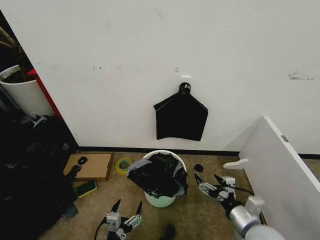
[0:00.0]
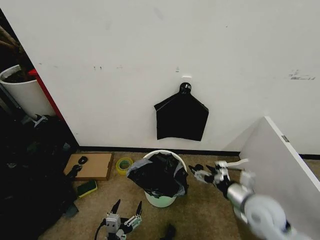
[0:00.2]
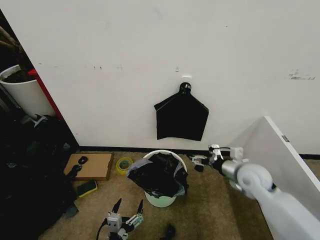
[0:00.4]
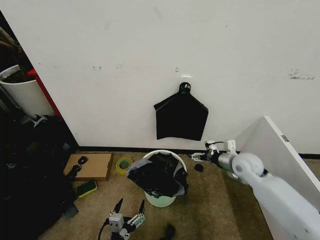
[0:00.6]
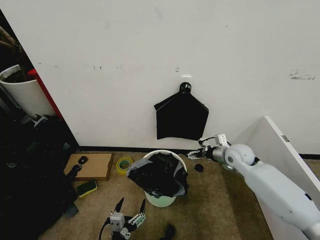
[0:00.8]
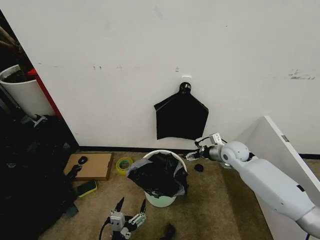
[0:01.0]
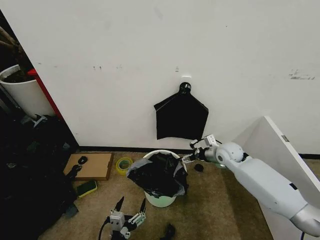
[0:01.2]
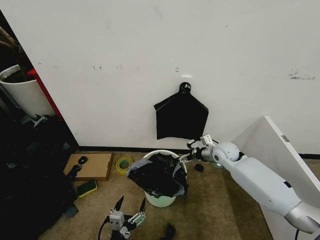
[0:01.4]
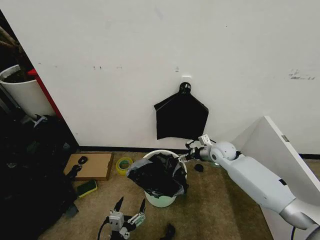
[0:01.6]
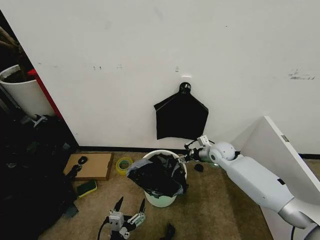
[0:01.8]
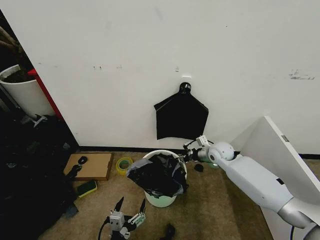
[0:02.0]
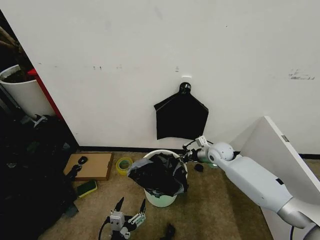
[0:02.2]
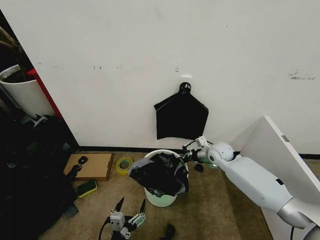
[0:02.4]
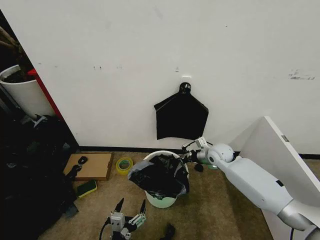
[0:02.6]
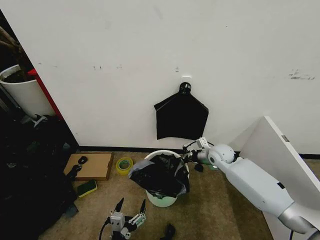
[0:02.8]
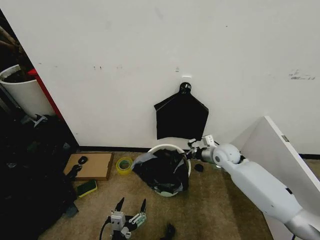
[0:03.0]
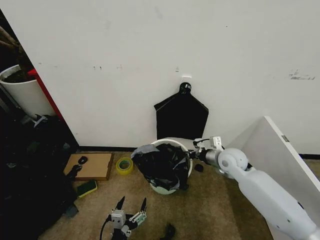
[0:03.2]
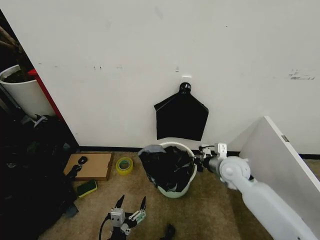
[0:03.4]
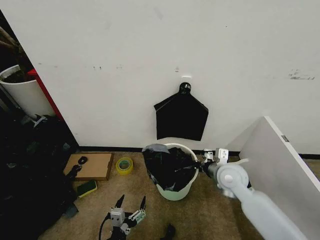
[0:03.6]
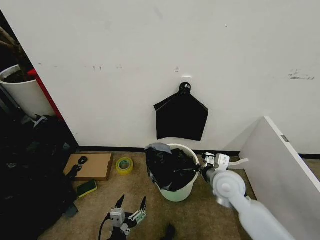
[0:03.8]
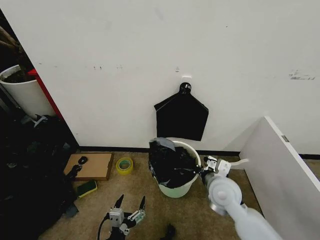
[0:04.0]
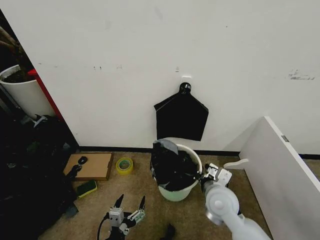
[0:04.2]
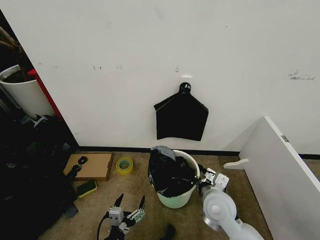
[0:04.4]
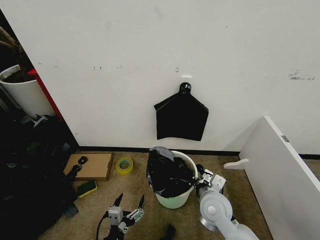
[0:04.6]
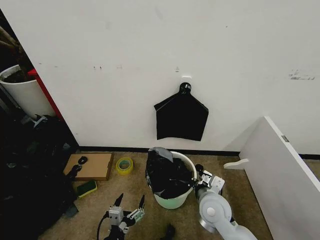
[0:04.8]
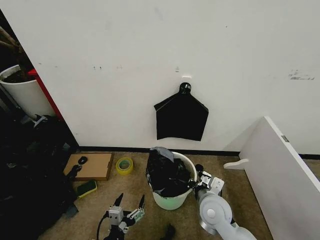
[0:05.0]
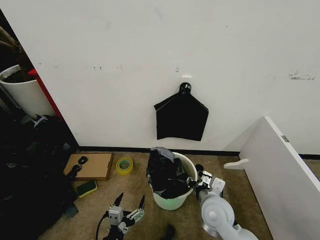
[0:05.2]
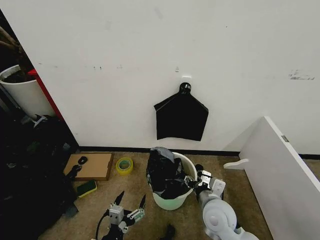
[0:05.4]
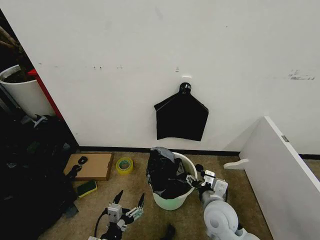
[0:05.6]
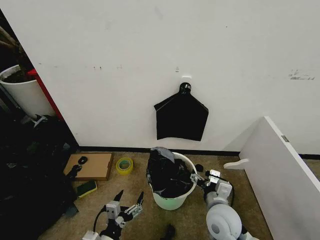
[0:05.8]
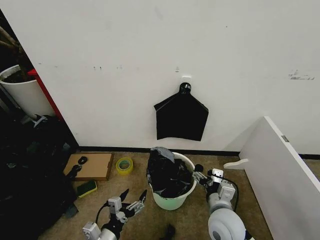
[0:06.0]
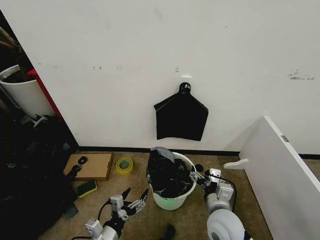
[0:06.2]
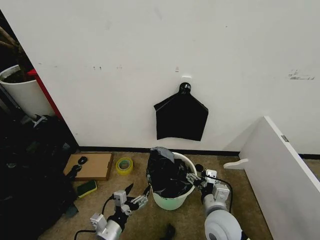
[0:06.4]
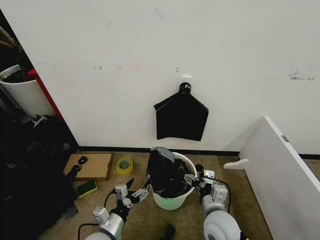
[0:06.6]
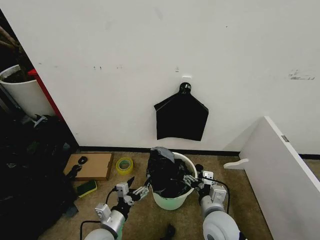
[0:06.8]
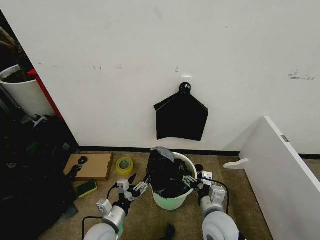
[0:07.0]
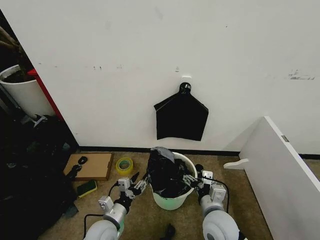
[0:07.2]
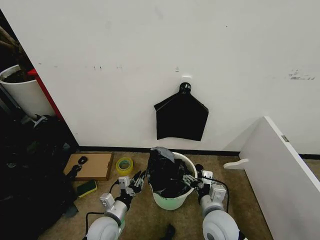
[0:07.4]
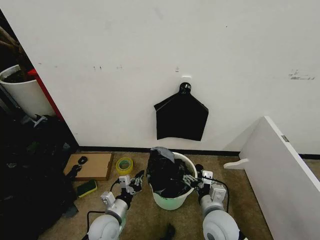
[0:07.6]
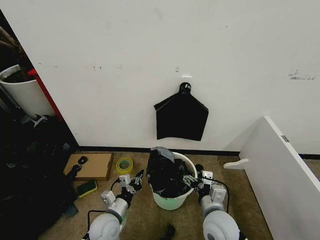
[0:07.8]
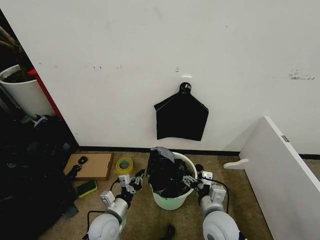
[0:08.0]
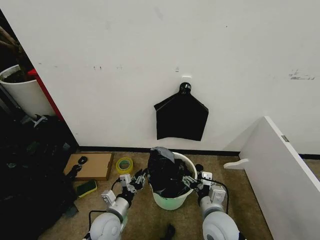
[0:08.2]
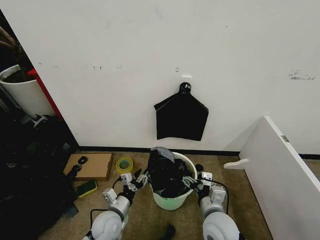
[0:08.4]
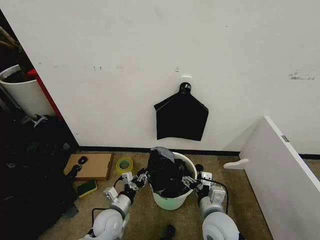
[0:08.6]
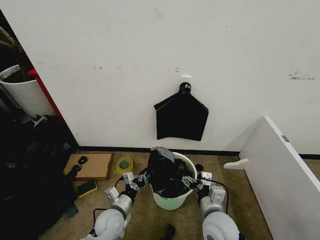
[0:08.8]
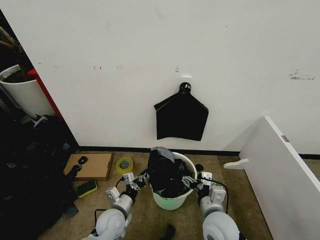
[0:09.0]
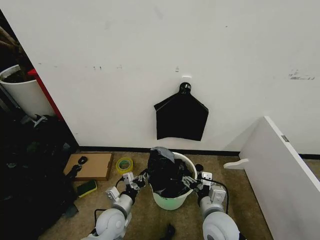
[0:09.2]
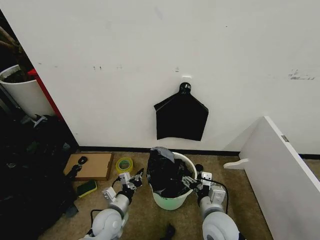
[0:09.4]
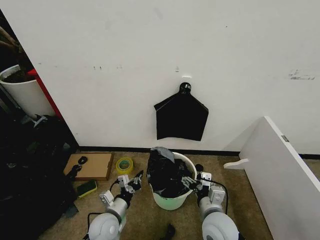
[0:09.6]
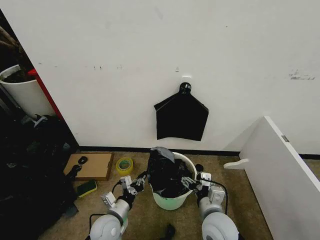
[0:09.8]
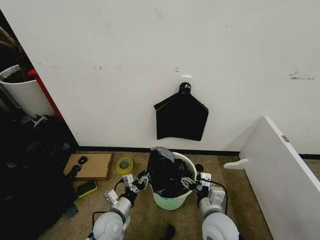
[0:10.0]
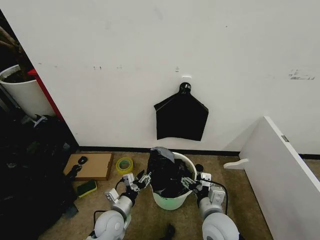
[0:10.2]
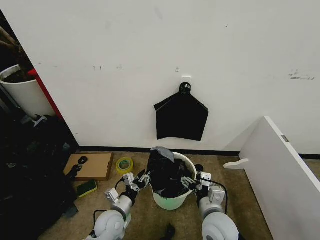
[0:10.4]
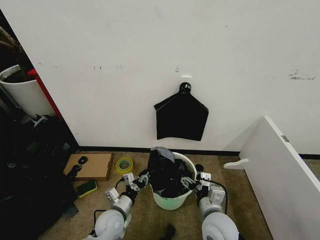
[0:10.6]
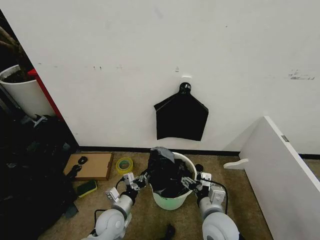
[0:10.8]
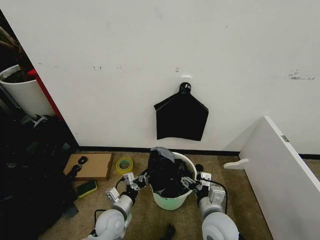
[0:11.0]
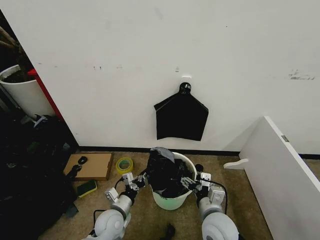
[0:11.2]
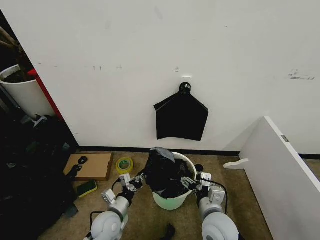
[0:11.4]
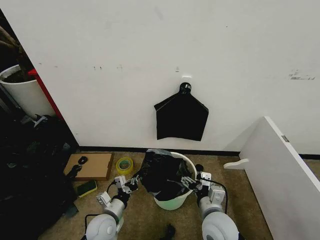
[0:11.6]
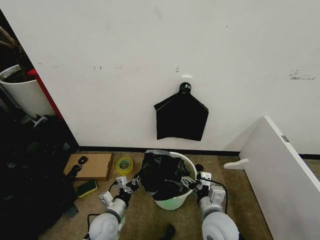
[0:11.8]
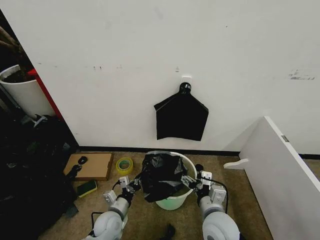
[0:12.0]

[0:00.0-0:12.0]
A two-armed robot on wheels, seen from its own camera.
Task of the whole recording: Place the garbage bag over the trash bin.
0:00.0 to 0:01.6: The right gripper is displaced forward by some 30 cm.
0:01.6 to 0:03.0: The right gripper closes up.
0:03.0 to 0:04.4: The right gripper moves backward and to the left, roughly 20 cm.
0:04.4 to 0:06.0: The right gripper opens.
0:06.0 to 0:07.6: The left gripper shifts about 10 cm forward, and closes.
0:07.6 to 0:09.0: The left gripper opens, then closes again.
0:09.0 to 0:10.4: The left gripper opens its fingers.
0:10.4 to 0:12.0: The left gripper closes up.

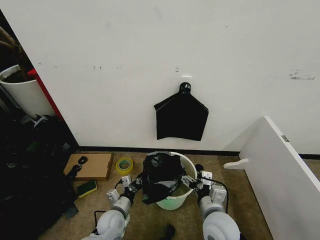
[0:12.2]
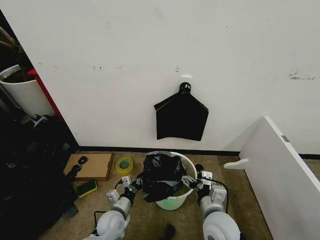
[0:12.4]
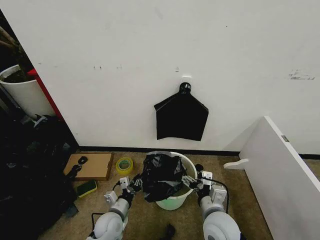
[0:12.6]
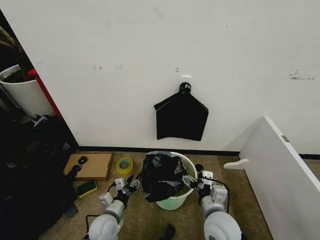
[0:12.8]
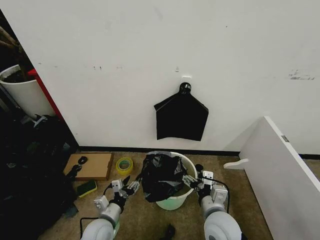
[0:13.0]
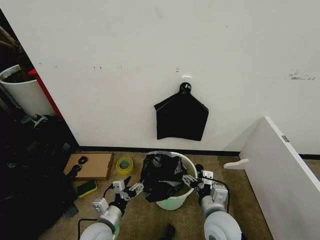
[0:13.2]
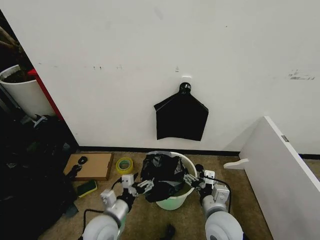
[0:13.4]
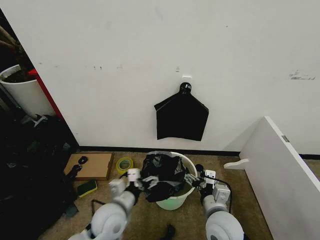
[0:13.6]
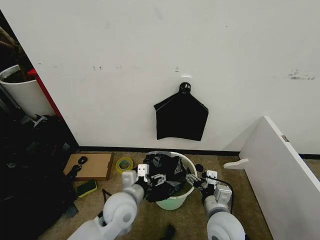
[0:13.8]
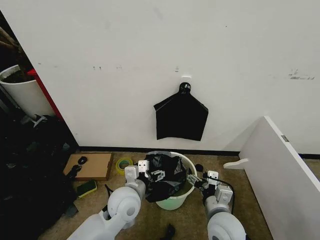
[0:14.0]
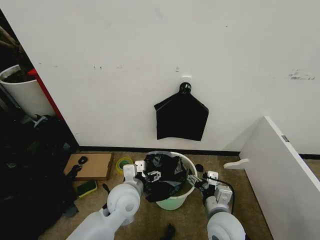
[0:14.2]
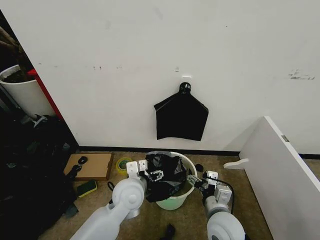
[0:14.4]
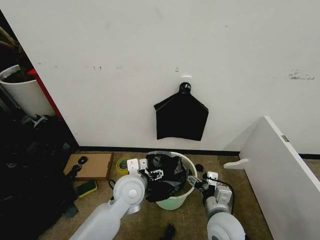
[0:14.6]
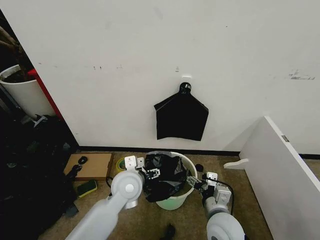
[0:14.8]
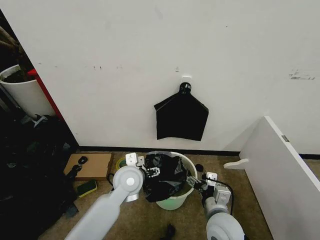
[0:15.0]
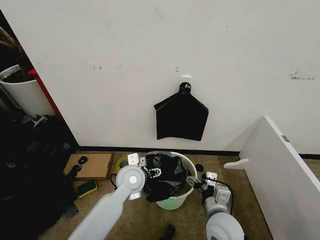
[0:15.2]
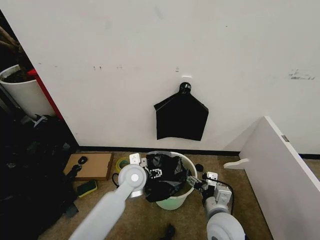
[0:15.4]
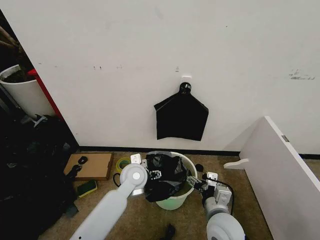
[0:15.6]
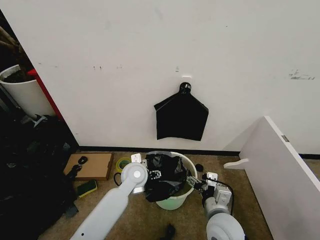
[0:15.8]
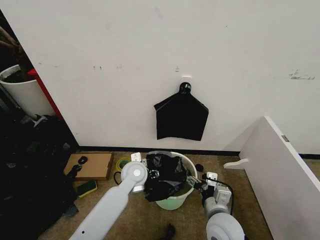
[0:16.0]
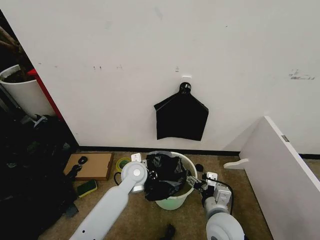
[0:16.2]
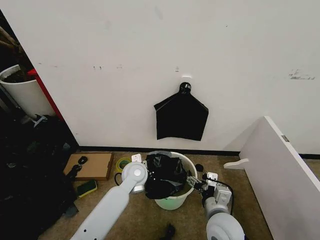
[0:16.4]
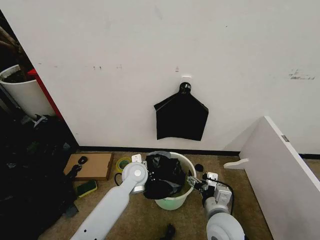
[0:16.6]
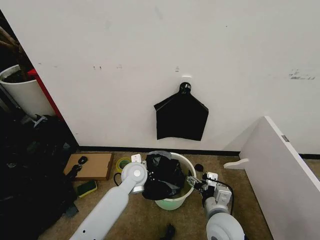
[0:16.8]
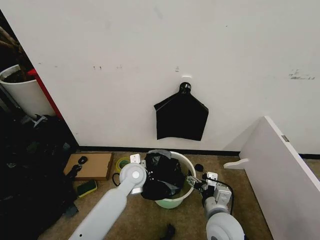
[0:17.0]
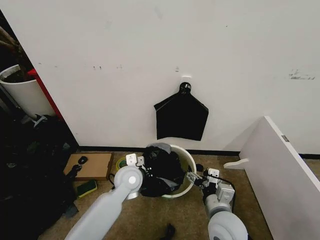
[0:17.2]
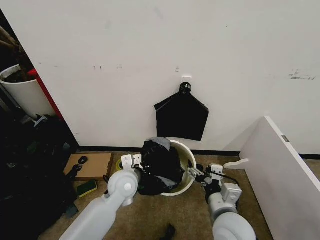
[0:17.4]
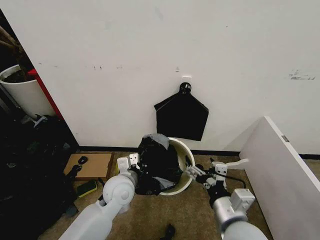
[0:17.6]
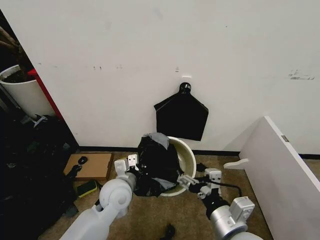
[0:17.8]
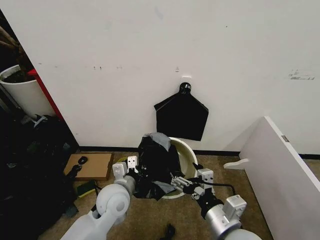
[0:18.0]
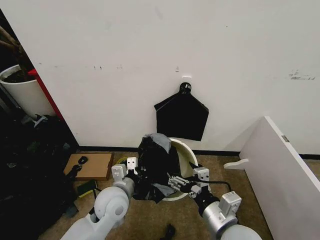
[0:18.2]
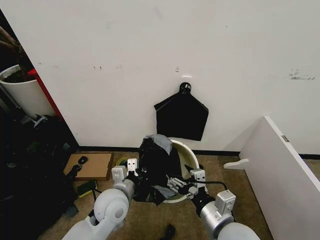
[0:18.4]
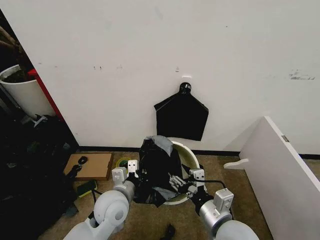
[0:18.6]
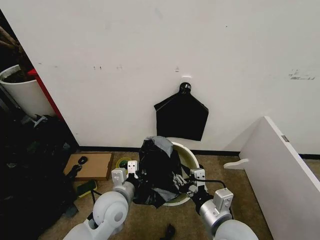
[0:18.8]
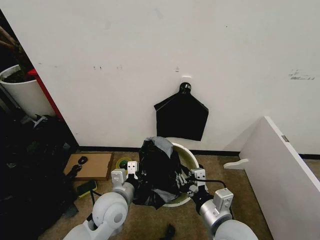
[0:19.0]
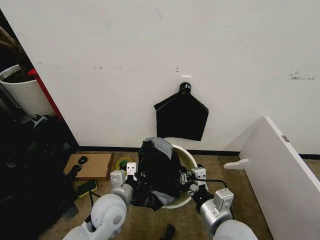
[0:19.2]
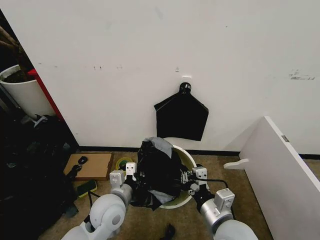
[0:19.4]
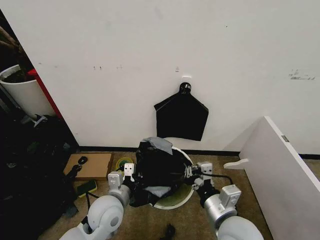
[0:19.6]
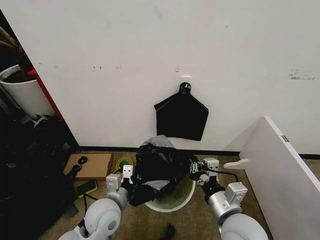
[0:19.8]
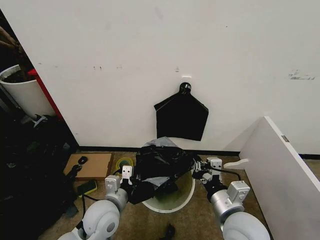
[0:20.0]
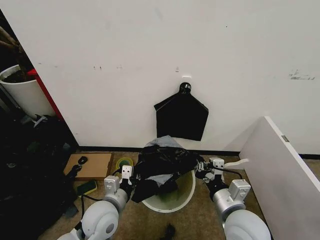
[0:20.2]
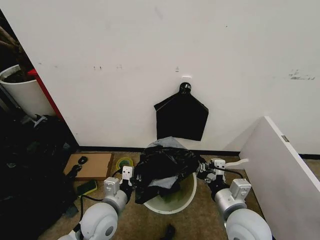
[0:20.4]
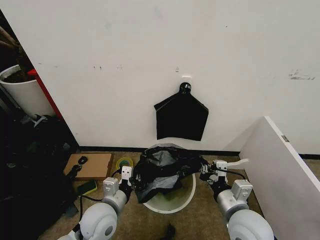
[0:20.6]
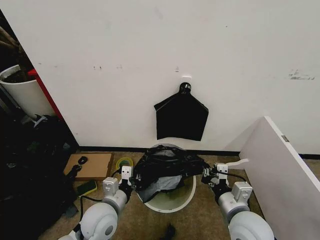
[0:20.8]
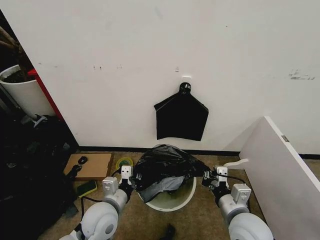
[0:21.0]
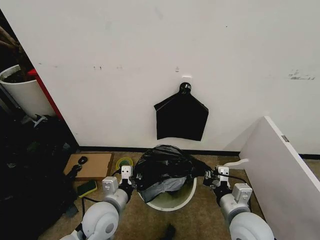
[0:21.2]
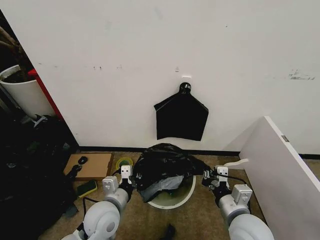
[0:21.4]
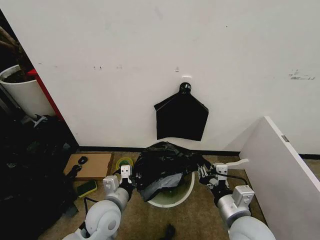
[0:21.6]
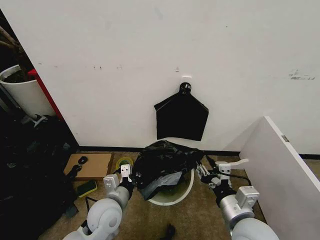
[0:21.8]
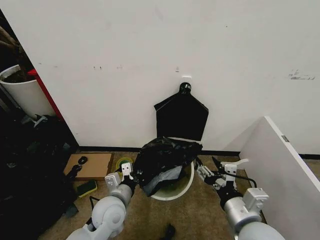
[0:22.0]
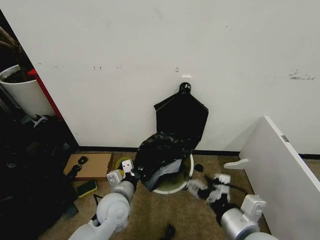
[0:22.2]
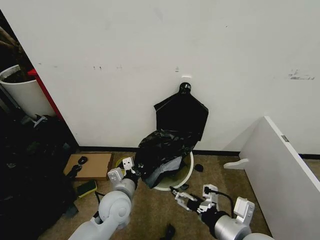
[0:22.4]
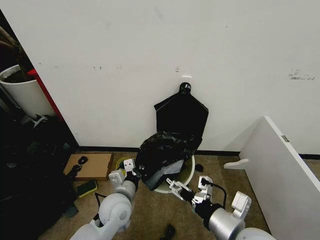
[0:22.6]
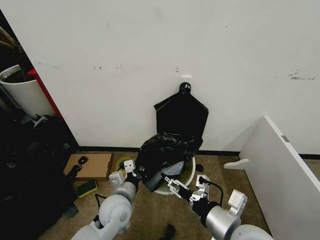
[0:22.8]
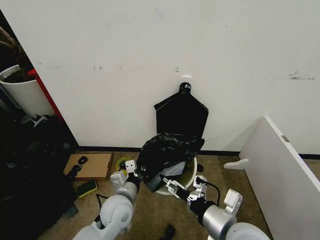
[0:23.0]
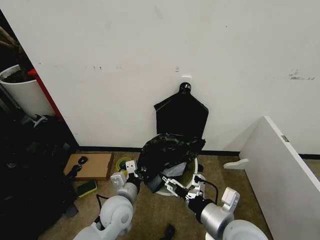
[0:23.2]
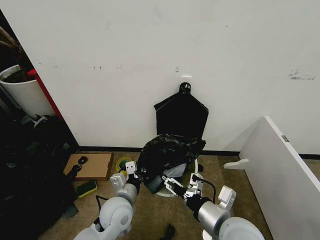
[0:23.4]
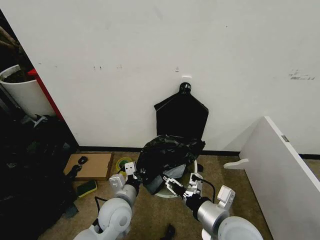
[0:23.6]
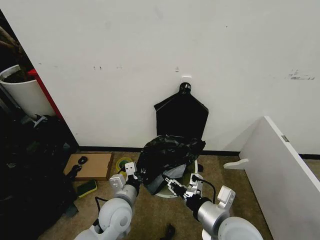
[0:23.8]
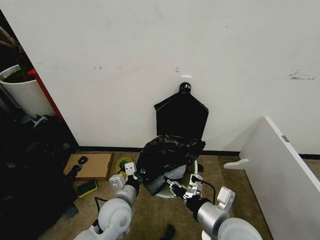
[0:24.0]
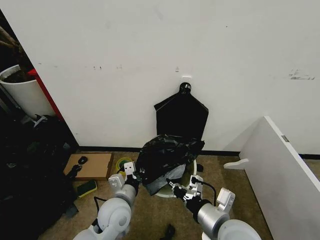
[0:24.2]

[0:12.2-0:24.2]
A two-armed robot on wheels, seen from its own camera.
Task of the whole recording: Place the garbage bag over the trash bin.
0:12.2 to 0:13.8: The left gripper is displaced upward by about 15 cm, and opens its fingers.
0:13.8 to 0:15.2: The left gripper is displaced forward by about 10 cm.
0:15.2 to 0:16.6: The left gripper changes place by approximately 5 cm, and closes its fingers.
0:16.6 to 0:18.2: The right gripper is displaced upward by about 10 cm; the left gripper goes some 10 cm backward and to the left.
0:18.2 to 0:19.8: The right gripper closes.
0:19.8 to 0:21.2: The right gripper shifts by approximately 5 cm.
0:21.2 to 0:22.6: The right gripper moves upward and backward, about 10 cm, and opens up.
0:22.6 to 0:24.2: The right gripper closes up.
